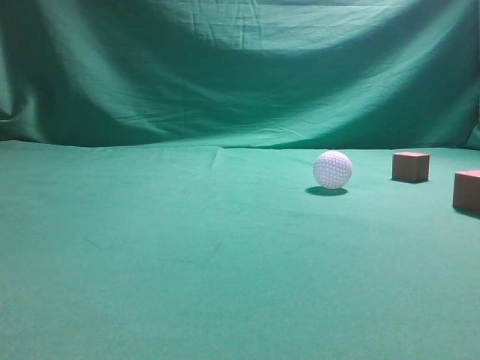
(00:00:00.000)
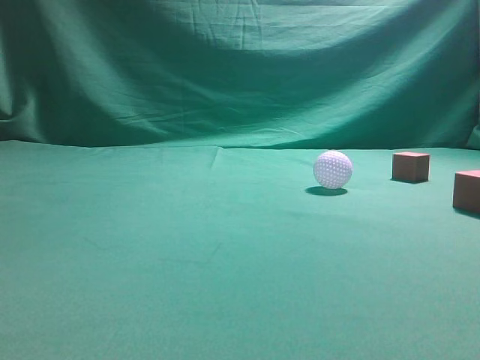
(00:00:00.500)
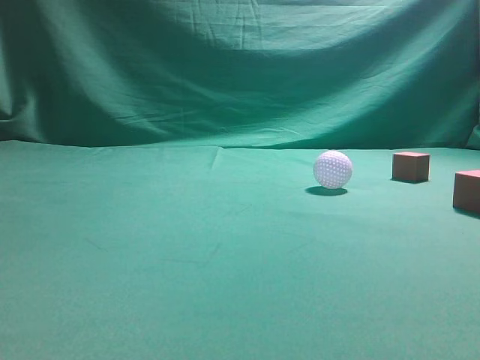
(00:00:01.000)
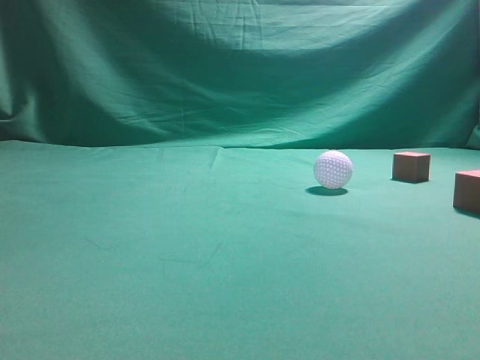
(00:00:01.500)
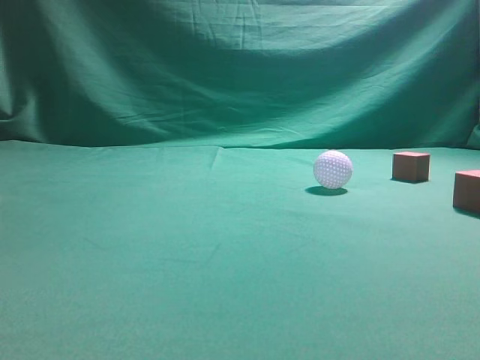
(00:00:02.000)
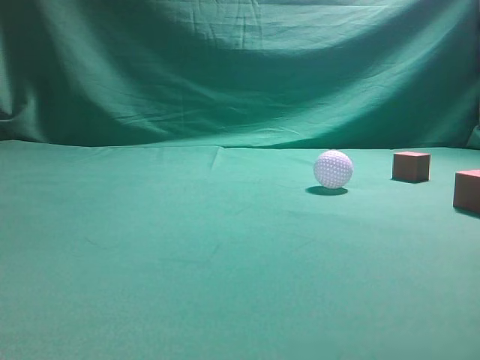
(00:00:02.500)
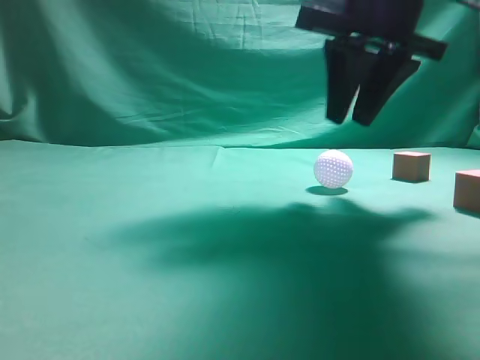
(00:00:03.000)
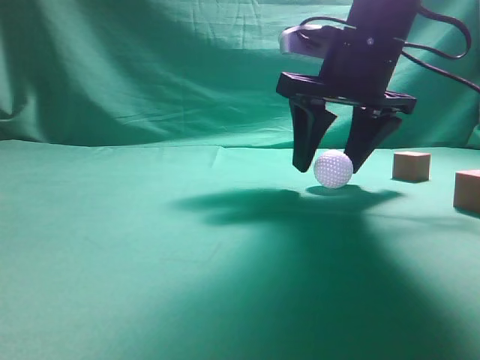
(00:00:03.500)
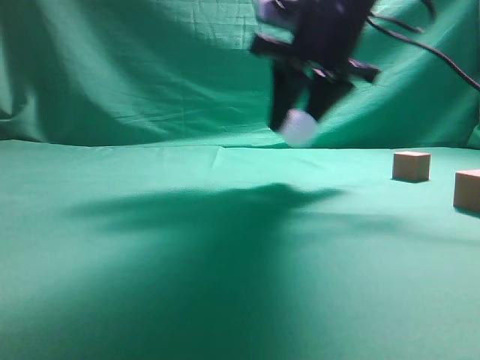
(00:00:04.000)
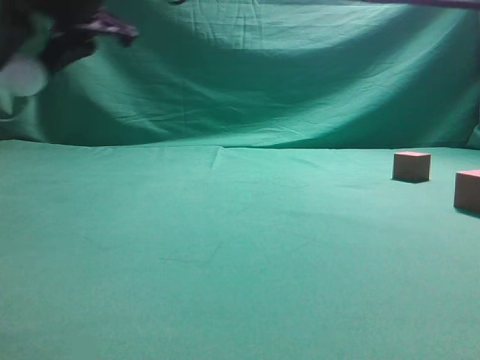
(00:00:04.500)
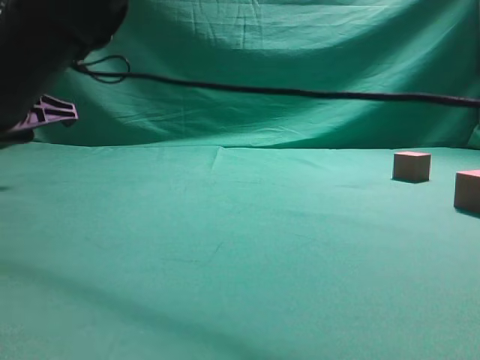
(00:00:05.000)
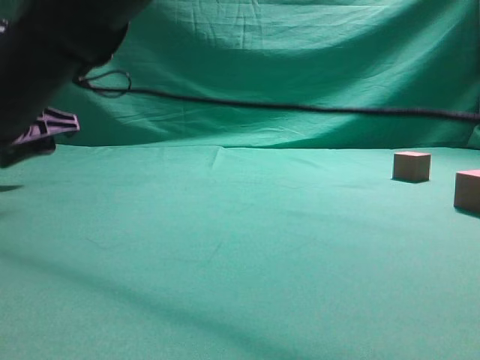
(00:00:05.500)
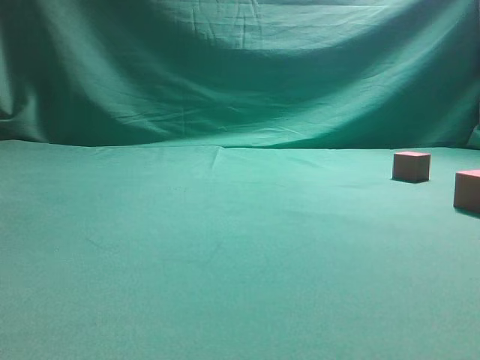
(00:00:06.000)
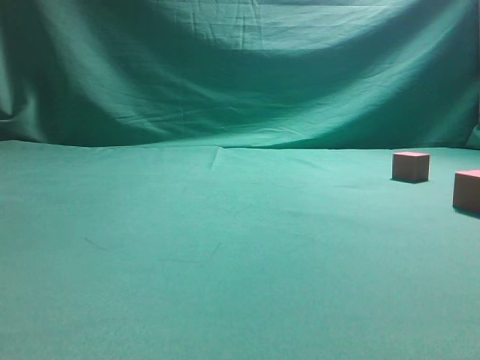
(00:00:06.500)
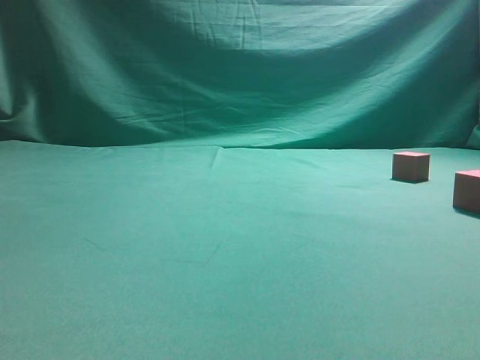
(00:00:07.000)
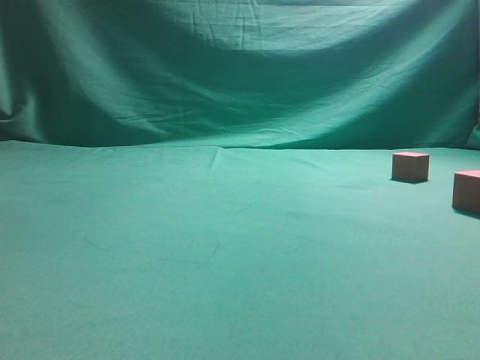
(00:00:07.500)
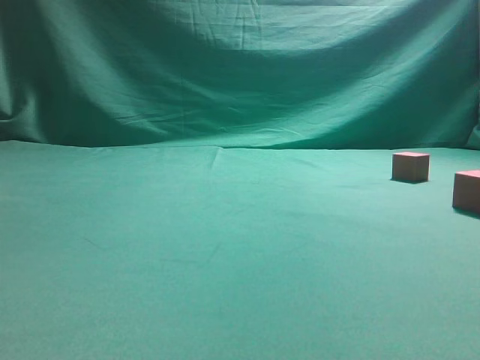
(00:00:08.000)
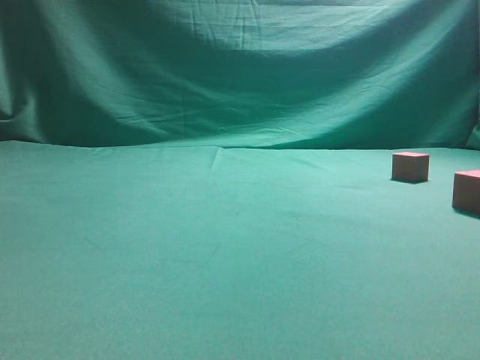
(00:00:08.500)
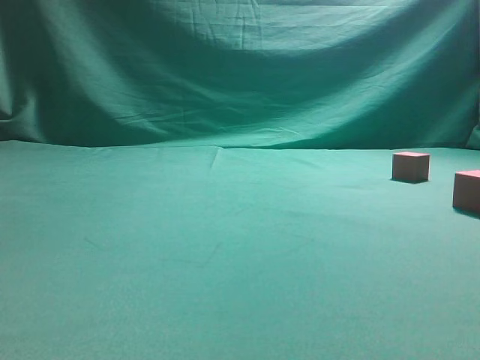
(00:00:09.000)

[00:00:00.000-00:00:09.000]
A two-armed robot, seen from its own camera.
Step, 00:00:00.000 to 00:00:03.500: Grasp the spherical object on the right side.
00:00:02.000 to 00:00:04.500: The right gripper goes some 50 cm to the left and forward, and opens.

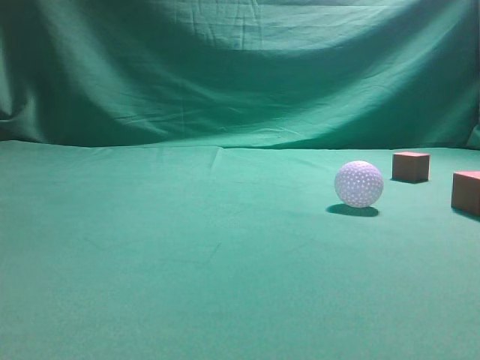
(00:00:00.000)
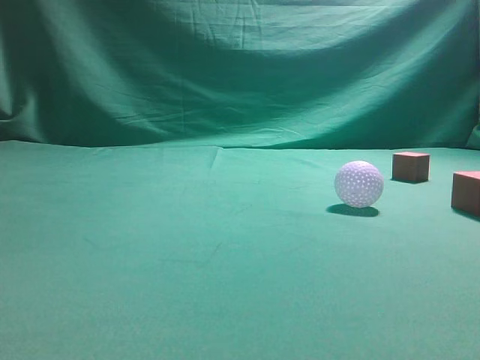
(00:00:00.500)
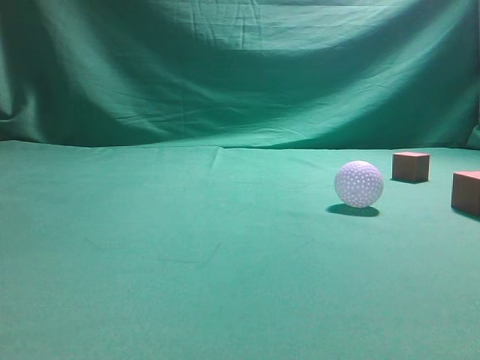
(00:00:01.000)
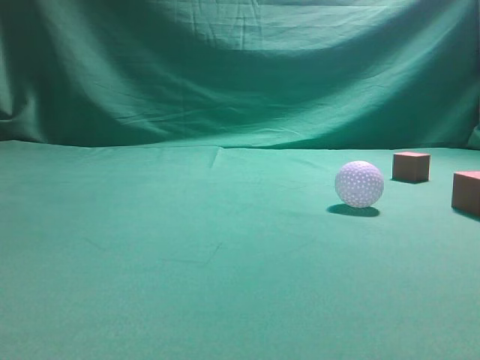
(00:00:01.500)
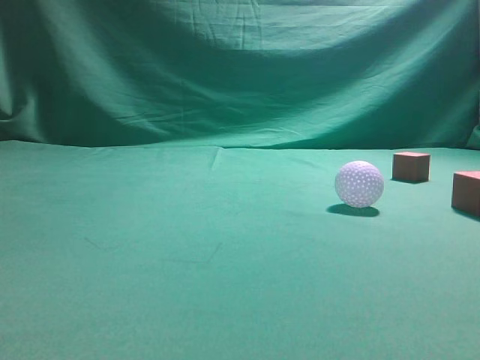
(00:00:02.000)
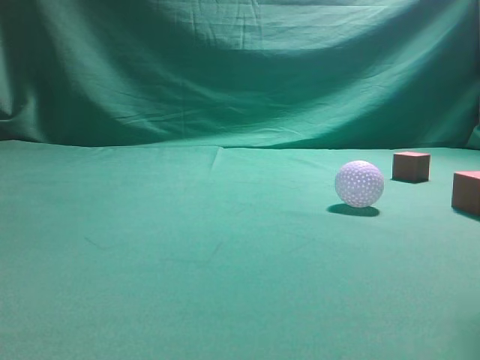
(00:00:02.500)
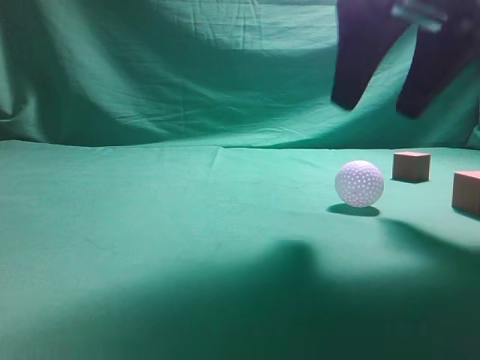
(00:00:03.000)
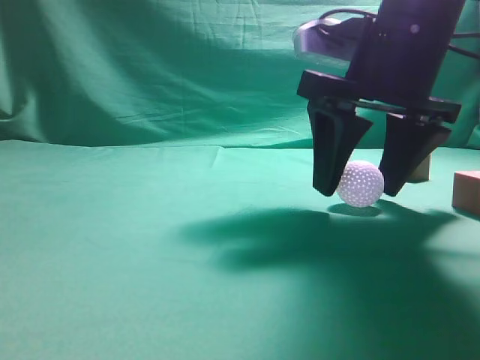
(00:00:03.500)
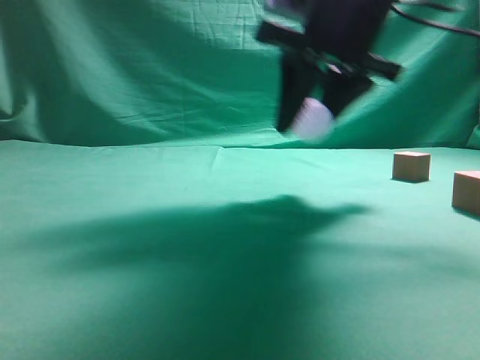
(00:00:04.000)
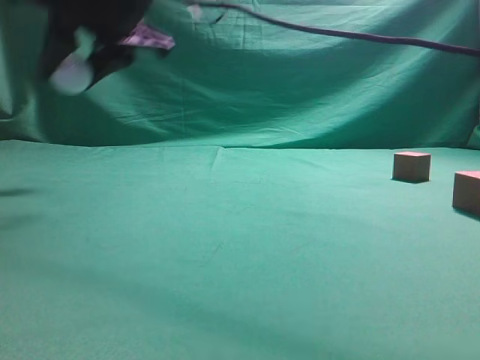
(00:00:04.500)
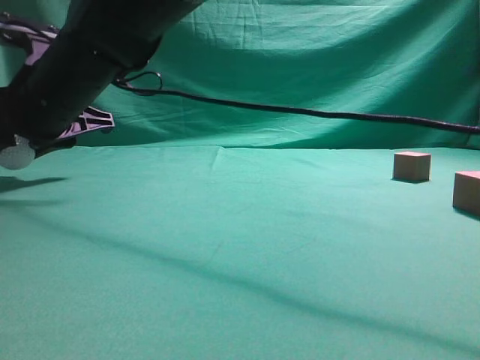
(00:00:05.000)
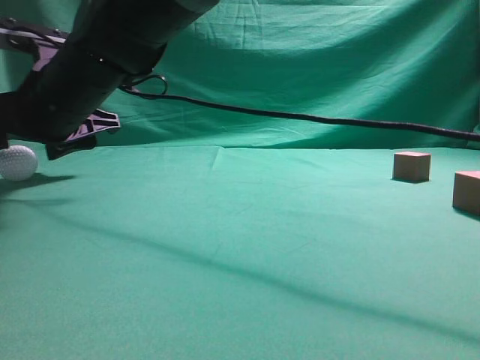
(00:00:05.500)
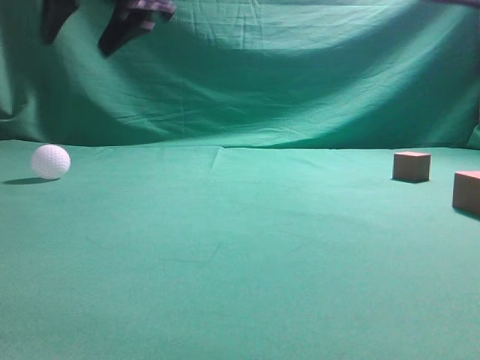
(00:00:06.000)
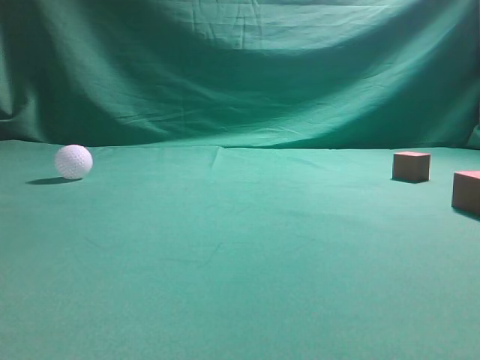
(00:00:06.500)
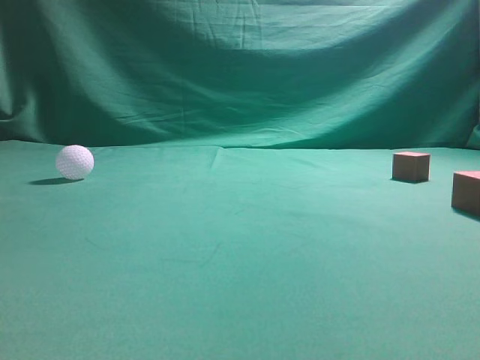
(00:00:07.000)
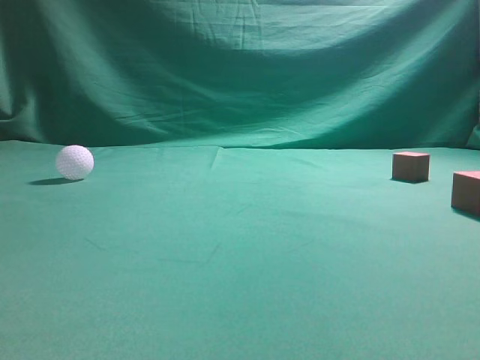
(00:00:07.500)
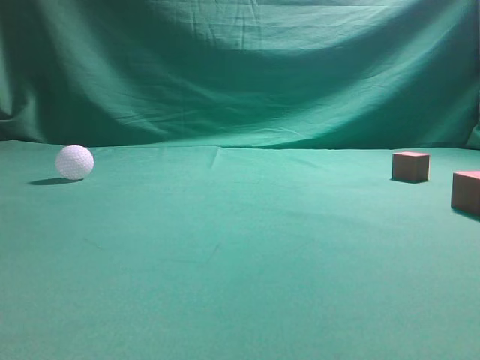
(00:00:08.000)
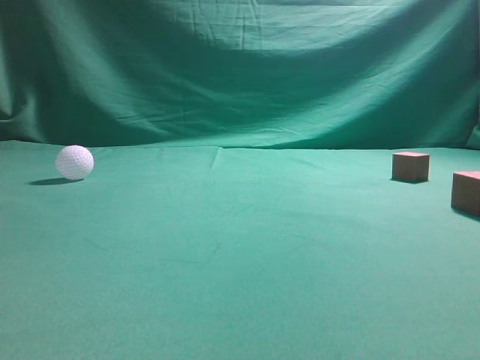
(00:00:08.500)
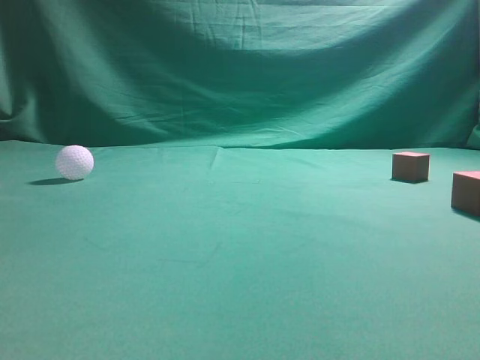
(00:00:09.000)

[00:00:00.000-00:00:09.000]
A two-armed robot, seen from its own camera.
Step, 00:00:00.000 to 00:00:04.000: Grasp the spherical object on the right side.
00:00:02.000 to 00:00:04.500: The right gripper is displaced to the left and forward by about 50 cm, and opens its fingers.
00:00:04.500 to 00:00:07.000: The right gripper heads to the right, upward and backward, covering roughly 40 cm, and closes.
